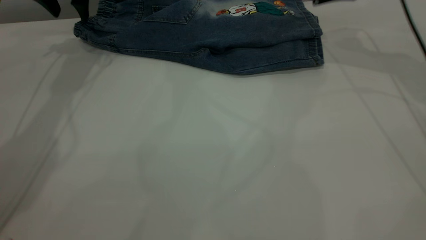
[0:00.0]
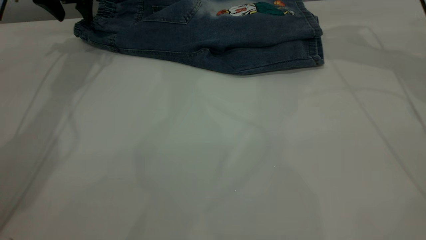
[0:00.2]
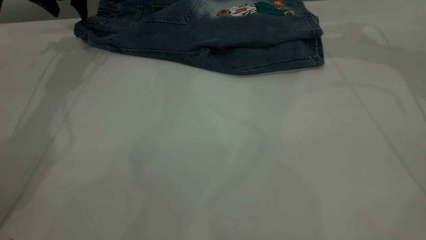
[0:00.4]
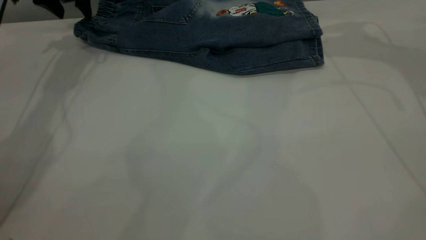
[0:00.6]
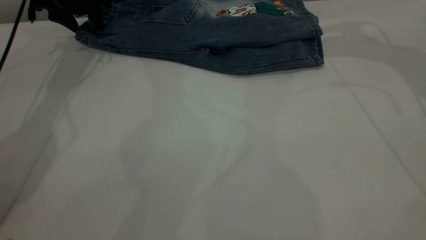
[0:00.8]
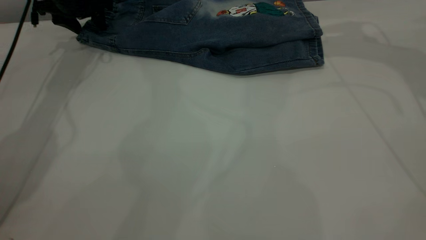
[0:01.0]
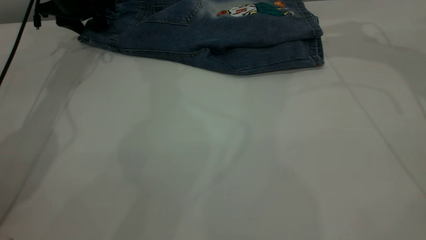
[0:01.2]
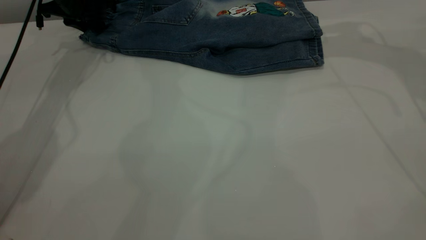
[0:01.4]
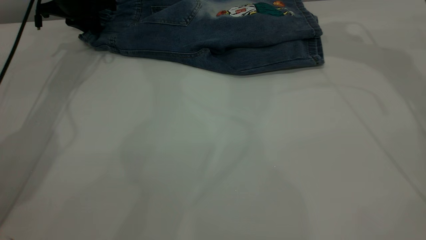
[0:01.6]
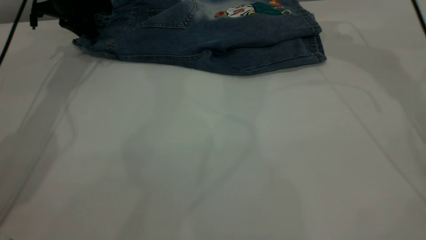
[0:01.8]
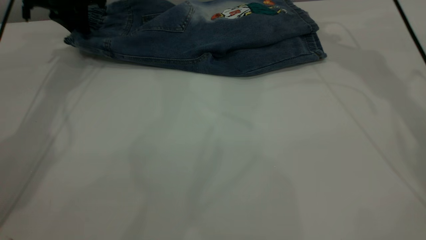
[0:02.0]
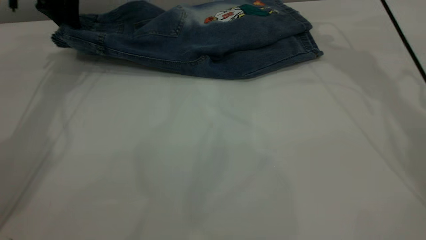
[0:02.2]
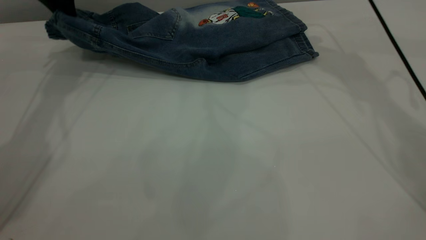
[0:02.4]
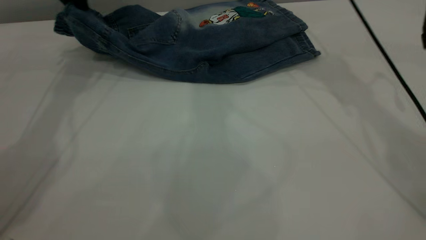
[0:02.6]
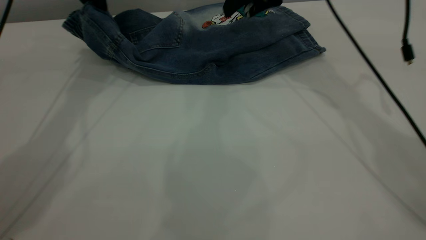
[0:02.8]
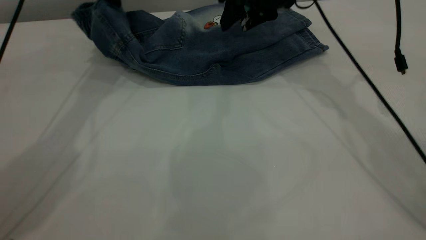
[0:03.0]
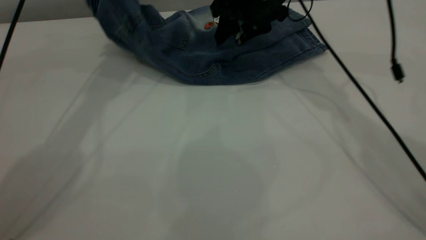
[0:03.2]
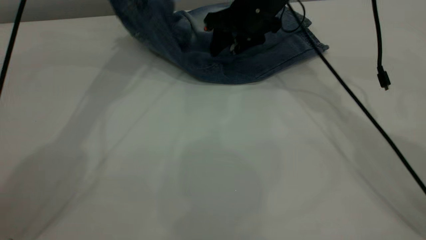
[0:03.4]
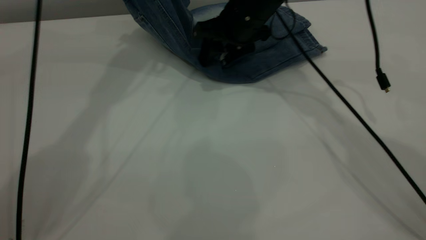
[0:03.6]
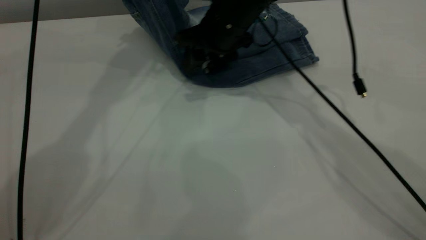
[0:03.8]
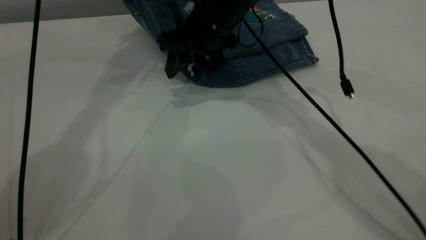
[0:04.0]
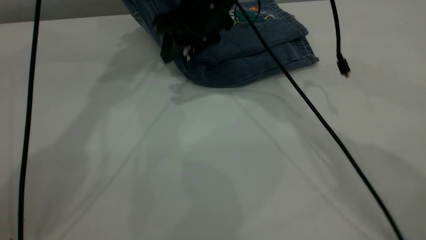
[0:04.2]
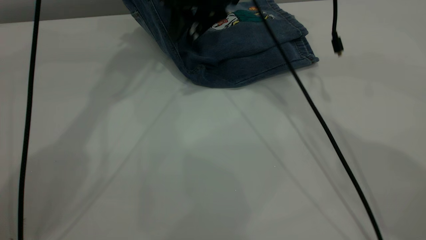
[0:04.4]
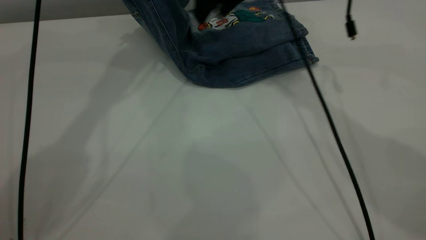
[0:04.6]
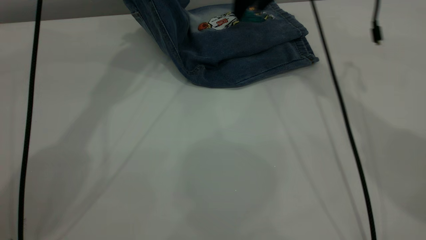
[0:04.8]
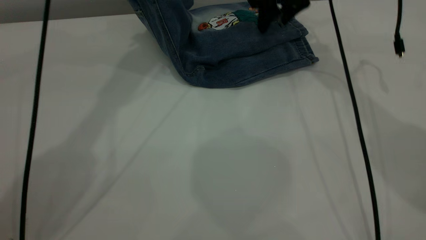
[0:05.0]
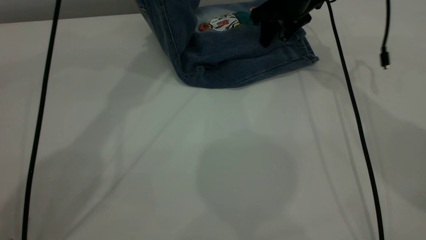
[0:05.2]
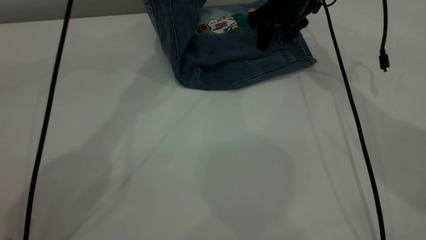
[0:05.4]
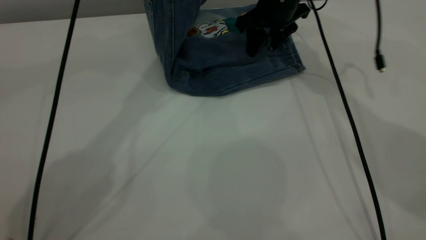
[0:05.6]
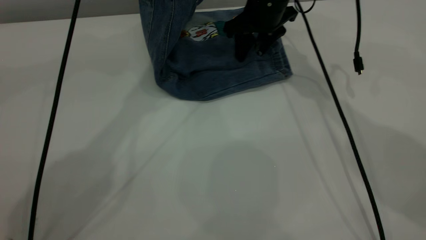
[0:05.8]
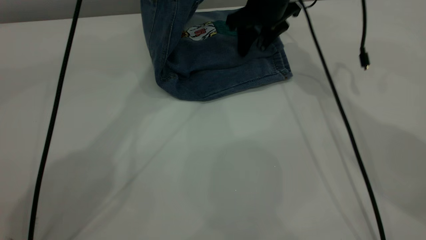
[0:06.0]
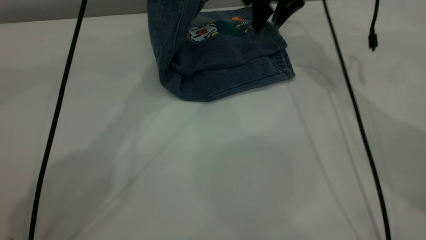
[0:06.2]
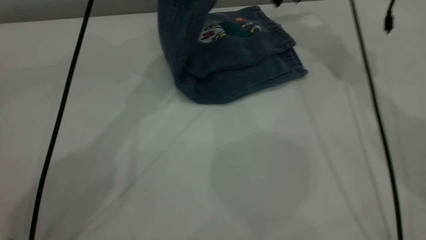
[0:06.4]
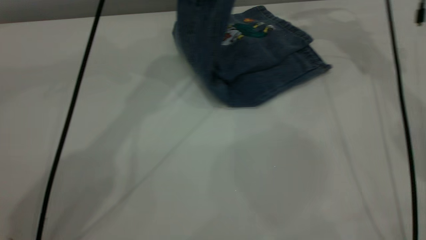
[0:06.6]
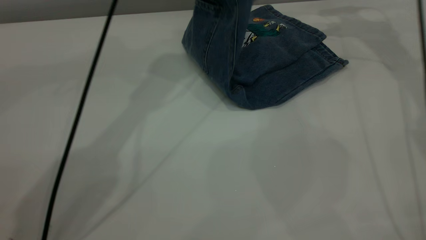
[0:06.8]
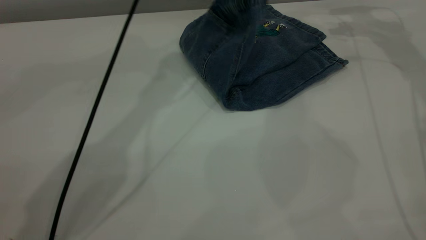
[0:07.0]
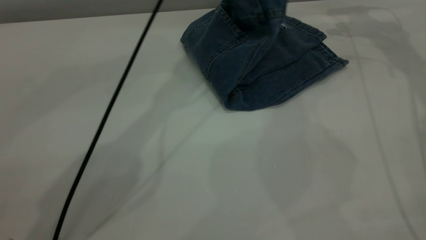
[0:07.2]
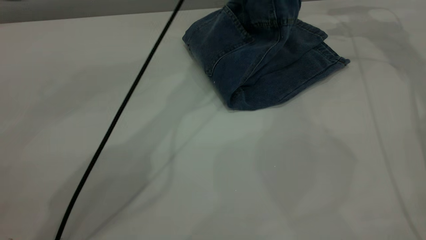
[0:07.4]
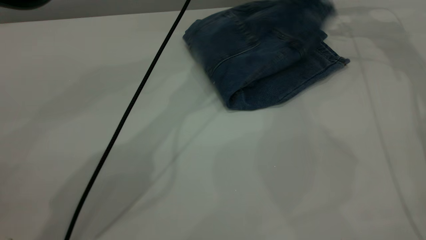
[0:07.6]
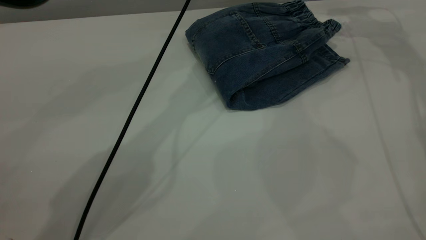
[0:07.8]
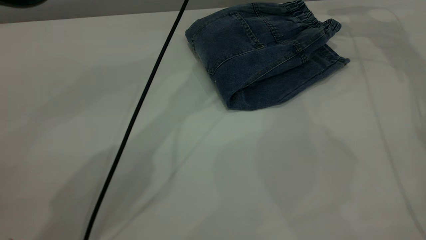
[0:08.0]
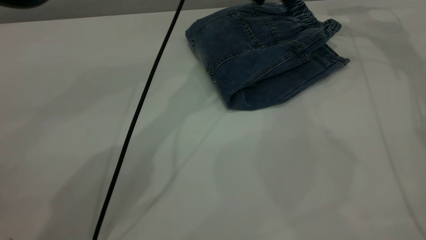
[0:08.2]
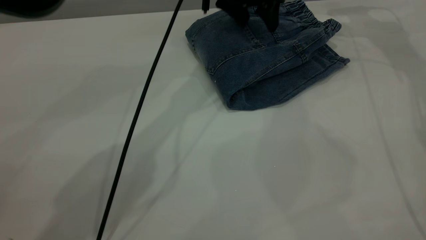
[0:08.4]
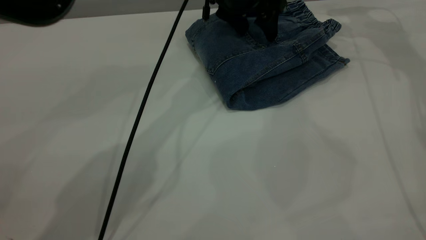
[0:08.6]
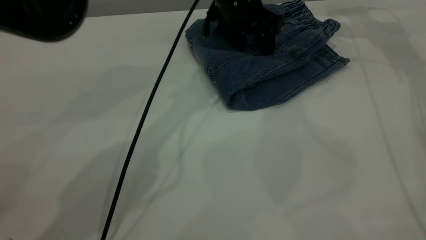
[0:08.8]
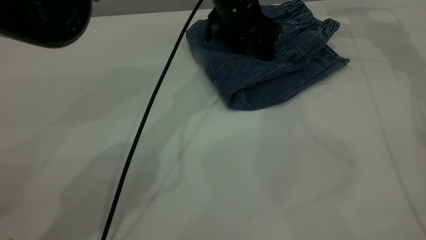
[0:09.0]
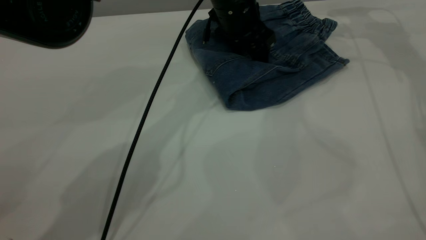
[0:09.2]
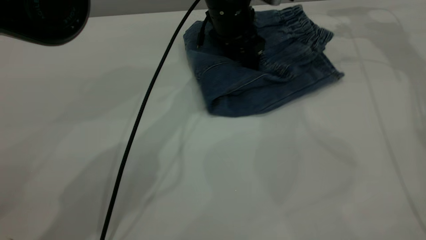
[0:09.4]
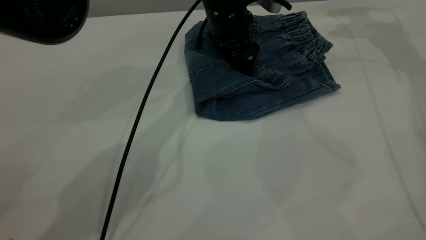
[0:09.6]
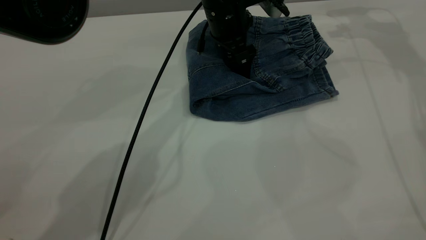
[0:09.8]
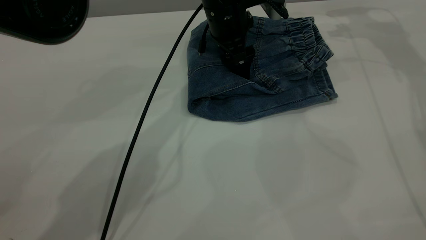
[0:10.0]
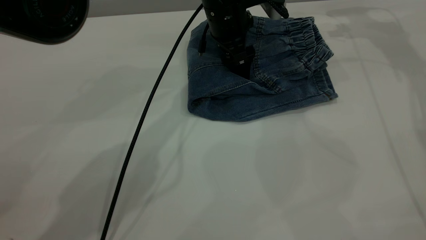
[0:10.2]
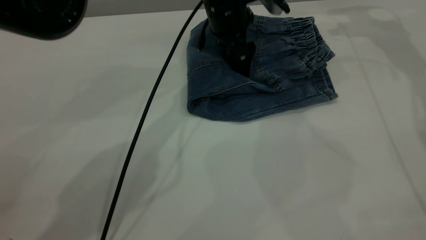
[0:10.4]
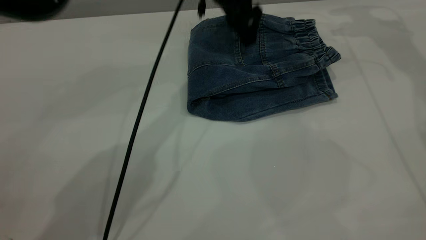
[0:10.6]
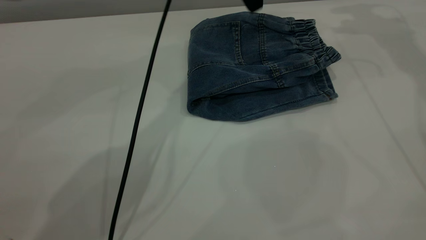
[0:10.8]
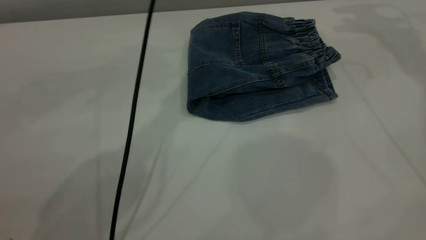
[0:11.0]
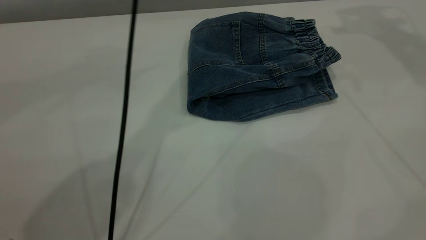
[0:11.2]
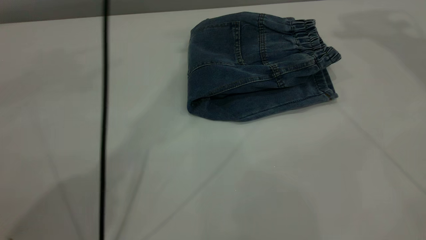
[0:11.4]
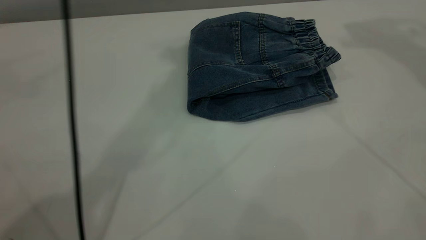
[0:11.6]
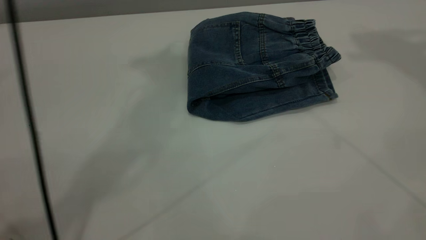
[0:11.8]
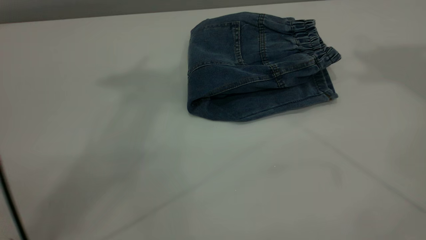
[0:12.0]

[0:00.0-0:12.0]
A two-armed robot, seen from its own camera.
Step, 0:00.0 to 0:08.0: Fold the pants from left to right.
0:00.0 to 0:01.6: The left gripper travels downward by approximately 5 cm, and closes.
0:01.6 to 0:03.0: The right gripper travels to the left and downward by about 15 cm. The left gripper goes approximately 15 cm upward and to the right.
0:03.0 to 0:04.4: The left gripper travels upward by about 10 cm; the right gripper shifts roughly 10 cm to the left.
0:04.4 to 0:06.0: The left gripper shifts roughly 10 cm to the right, while the right gripper heads to the right and downward, covering about 10 cm.
0:06.0 to 0:07.6: The left gripper is displaced to the right and downward by roughly 15 cm, and opens its fingers. Meanwhile the right gripper shifts some 20 cm to the right.
0:07.6 to 0:09.0: The left gripper goes roughly 10 cm downward.
0:10.4 to 0:12.0: The left gripper travels upward by approximately 40 cm, while the right gripper moves upward and backward, approximately 40 cm.

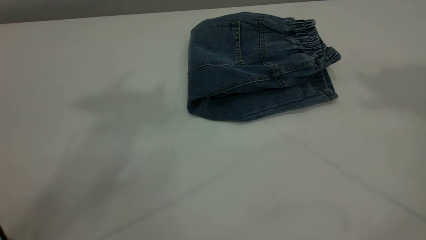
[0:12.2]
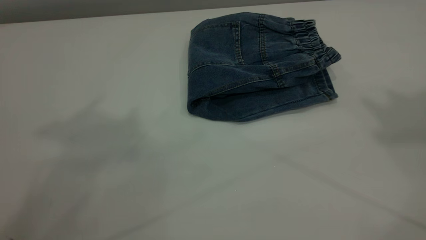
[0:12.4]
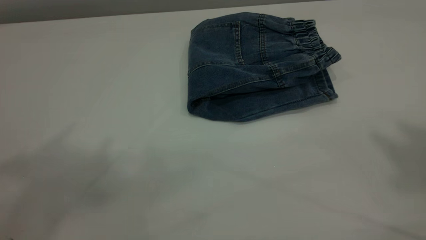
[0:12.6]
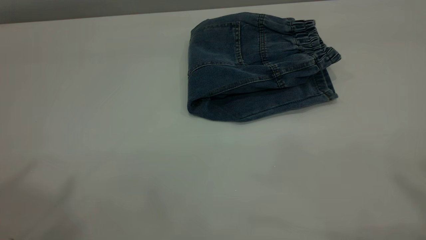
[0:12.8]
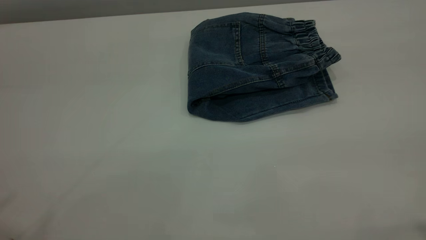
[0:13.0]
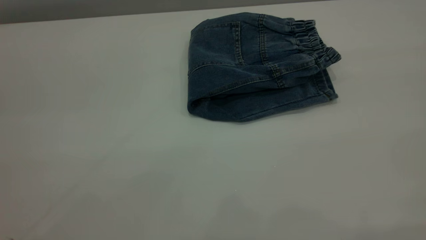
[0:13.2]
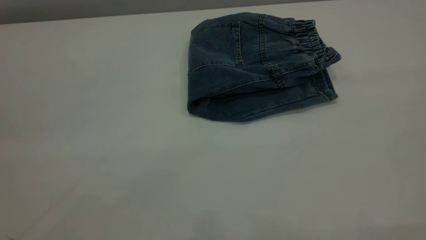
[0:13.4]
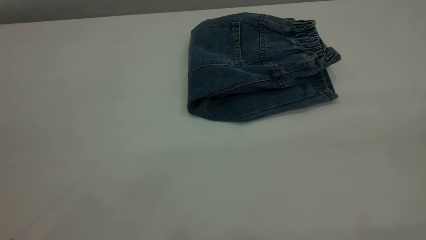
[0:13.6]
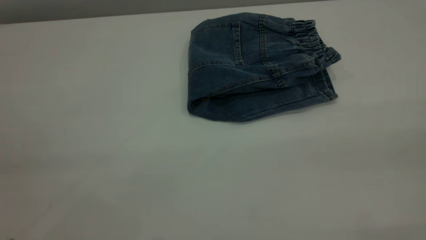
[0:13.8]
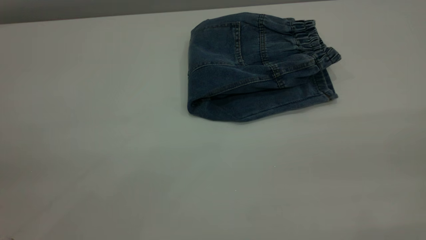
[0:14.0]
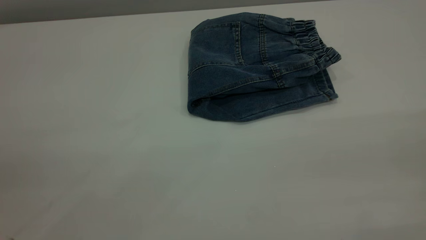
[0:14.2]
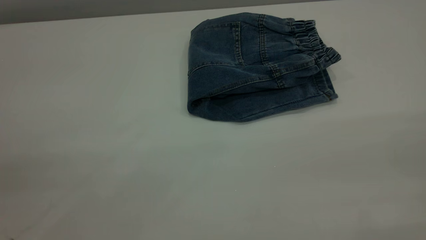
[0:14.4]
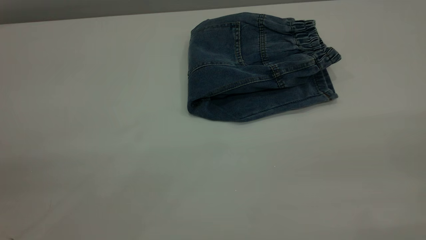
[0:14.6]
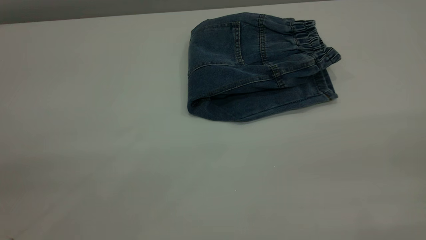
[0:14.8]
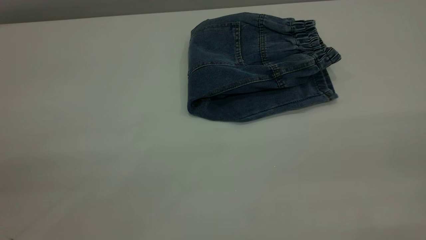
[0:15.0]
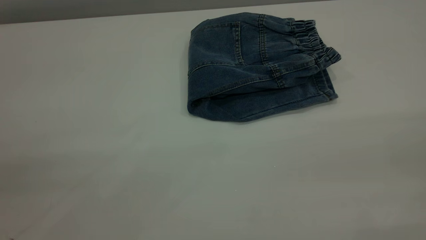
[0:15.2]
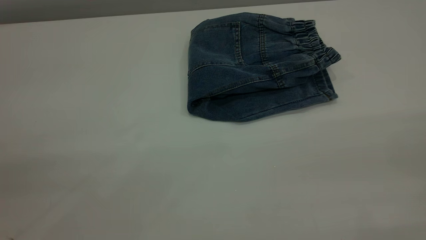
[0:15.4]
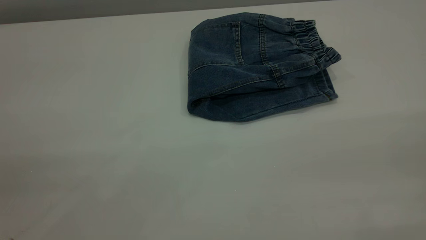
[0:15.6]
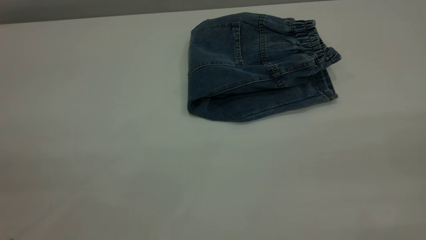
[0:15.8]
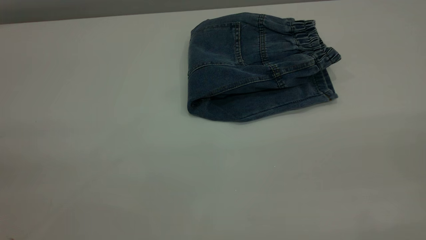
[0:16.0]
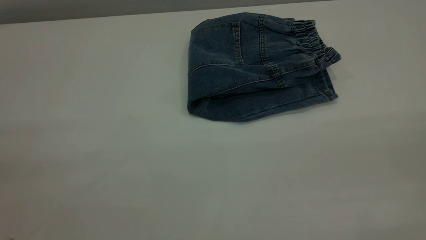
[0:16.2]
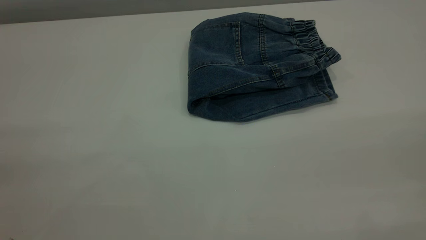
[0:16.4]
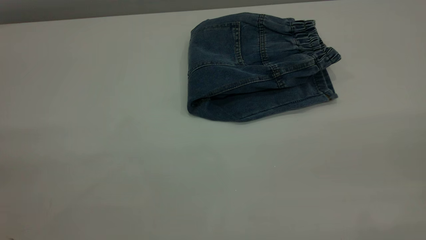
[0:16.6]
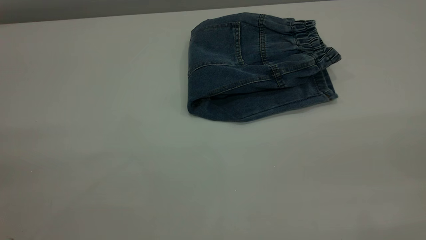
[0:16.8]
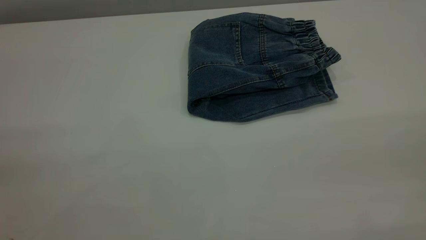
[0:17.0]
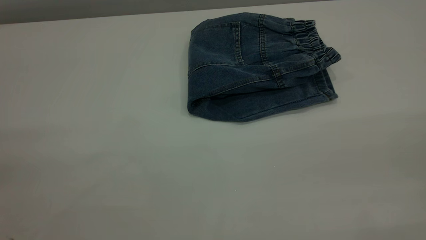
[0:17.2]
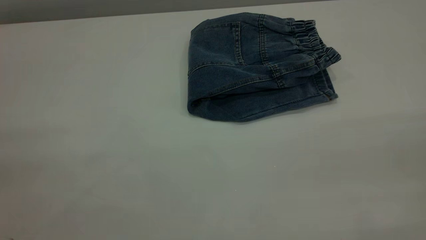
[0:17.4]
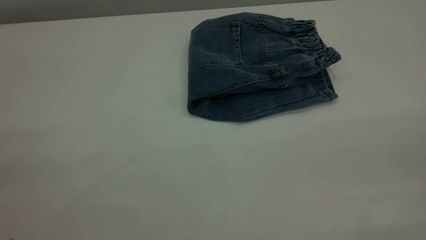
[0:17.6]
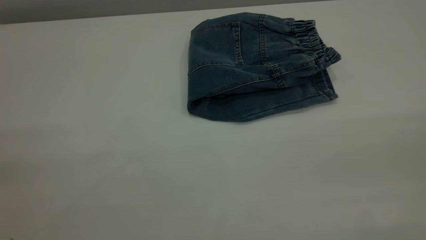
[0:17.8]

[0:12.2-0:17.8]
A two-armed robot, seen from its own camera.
0:16.4 to 0:17.8: Both grippers stay about where they are.
